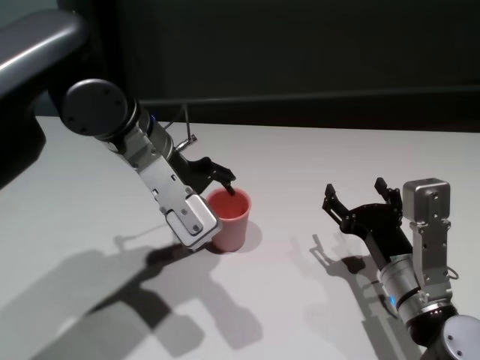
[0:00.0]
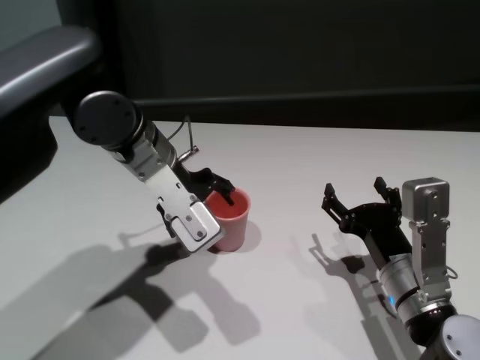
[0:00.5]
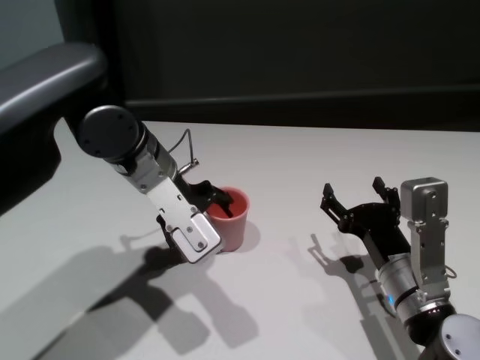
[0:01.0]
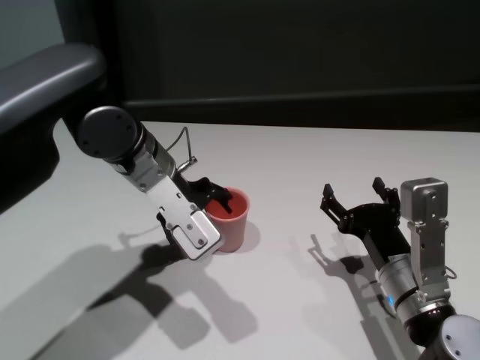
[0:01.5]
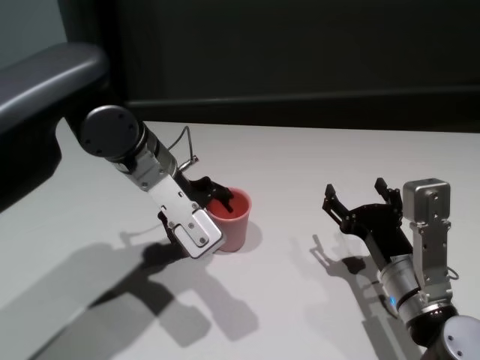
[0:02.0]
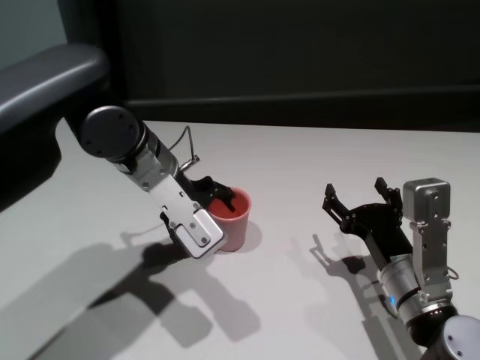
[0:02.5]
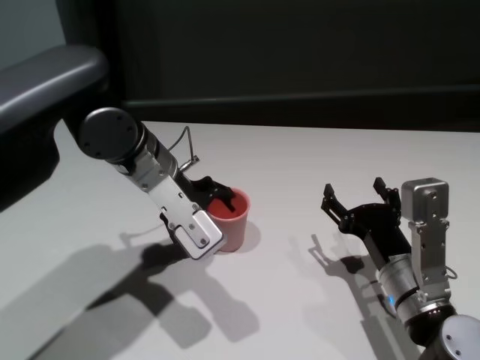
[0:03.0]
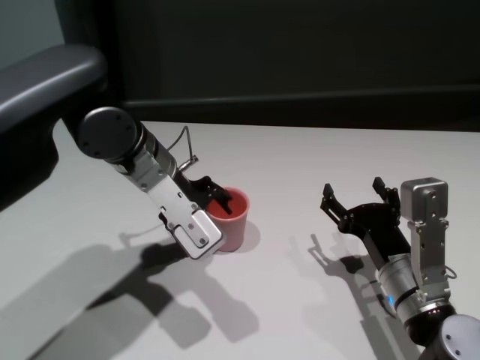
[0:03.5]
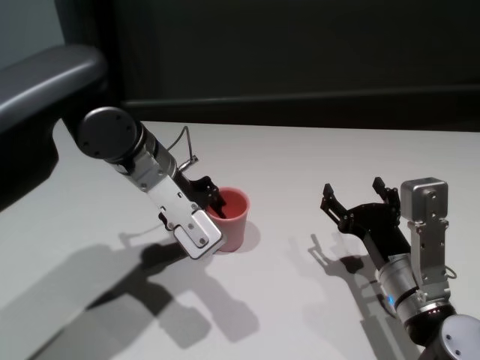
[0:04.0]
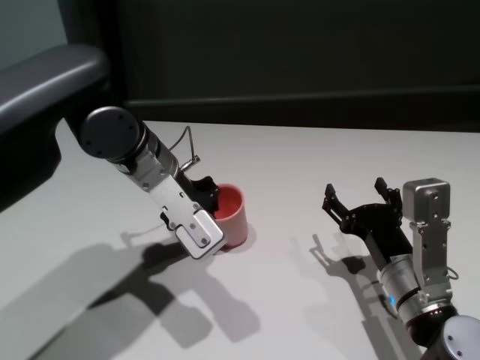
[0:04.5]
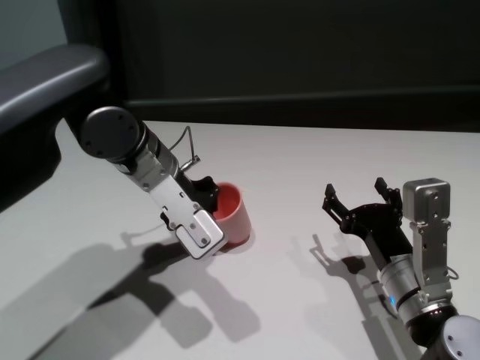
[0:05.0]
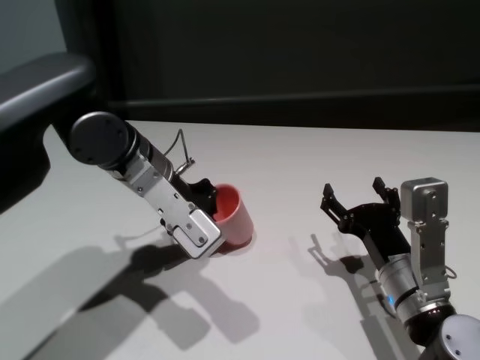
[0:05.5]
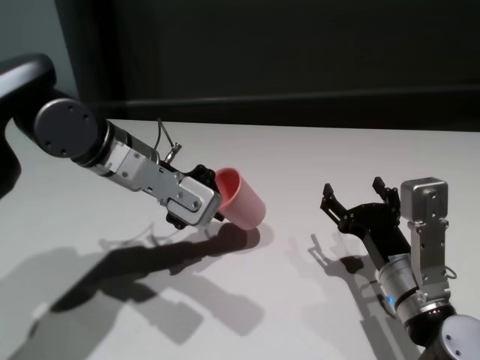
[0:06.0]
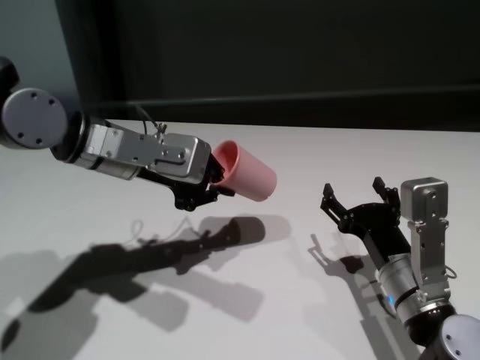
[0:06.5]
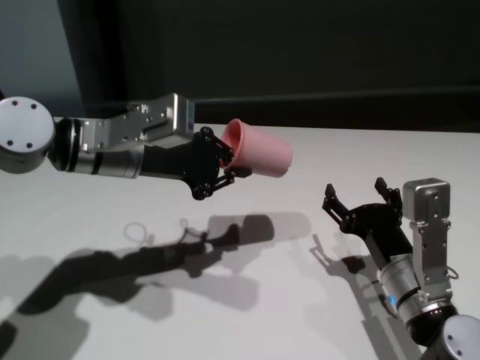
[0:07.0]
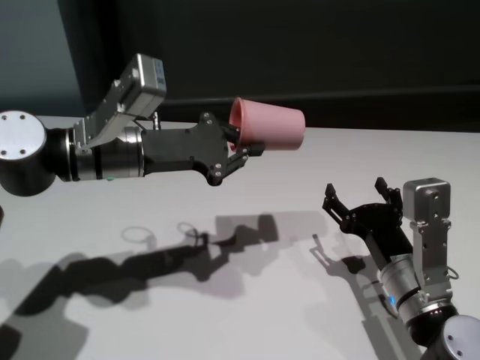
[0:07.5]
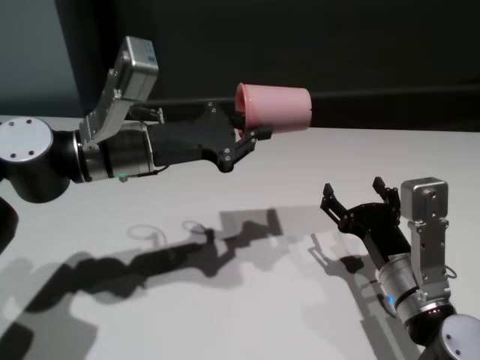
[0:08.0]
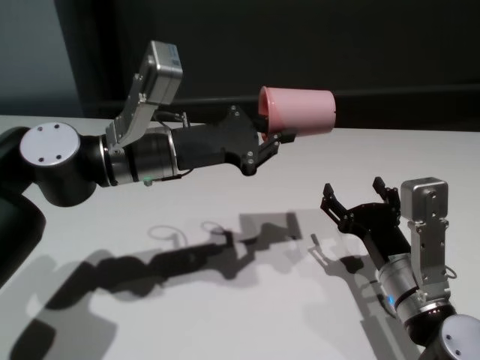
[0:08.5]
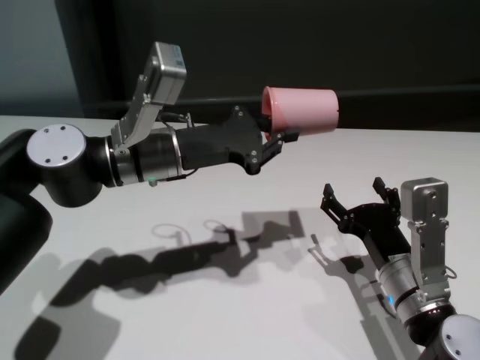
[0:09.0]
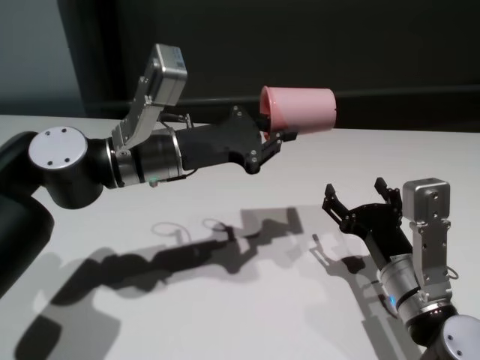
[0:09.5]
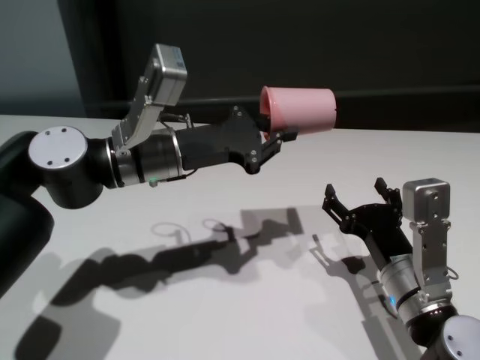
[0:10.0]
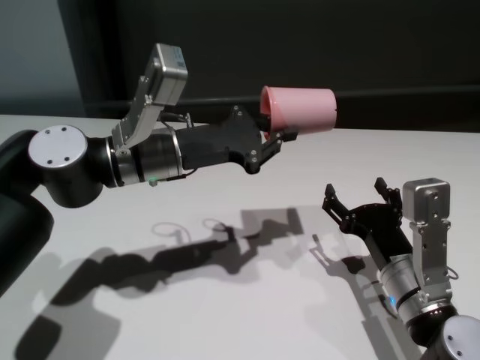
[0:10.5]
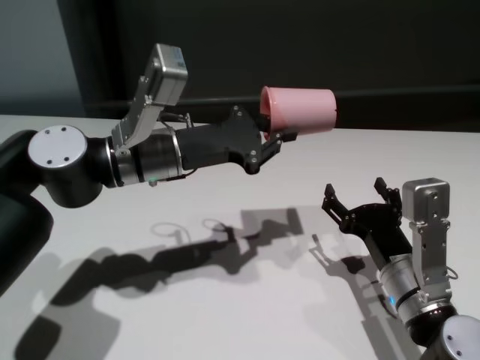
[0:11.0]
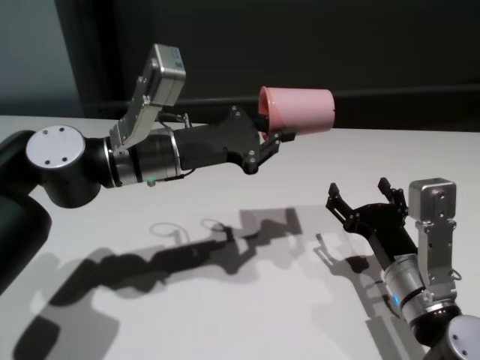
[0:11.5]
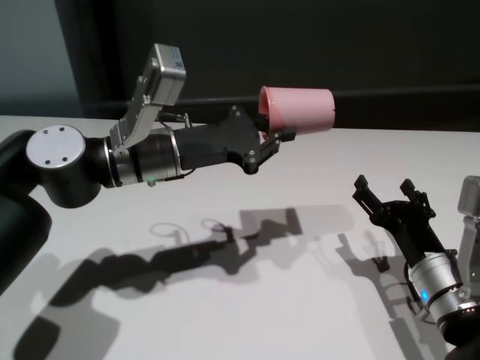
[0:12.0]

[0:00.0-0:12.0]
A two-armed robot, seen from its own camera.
Task of the whole recording: On the white table pick up the cup with one hand and transfer it to the other hand before turning it over.
Step, 0:00.0 to 0:04.5: Grasp the cup with left gripper.

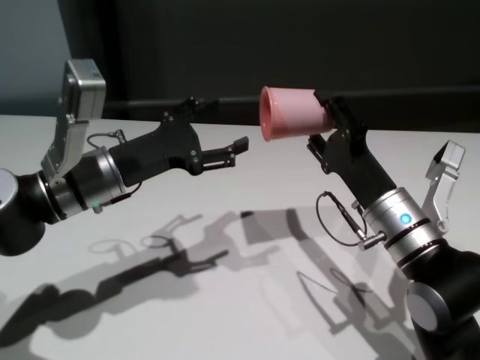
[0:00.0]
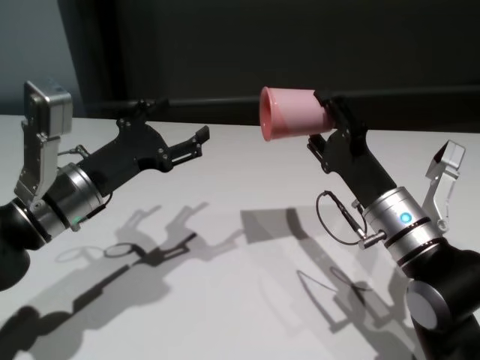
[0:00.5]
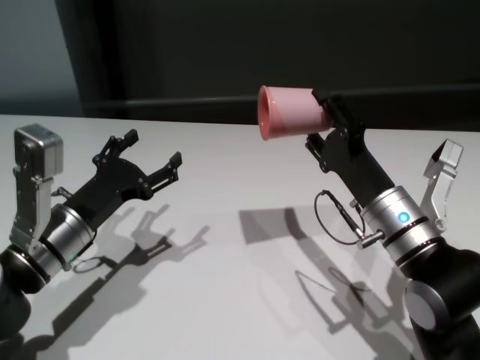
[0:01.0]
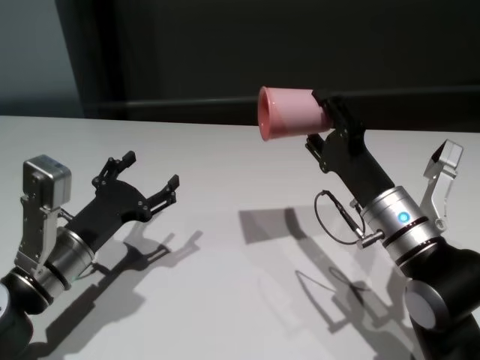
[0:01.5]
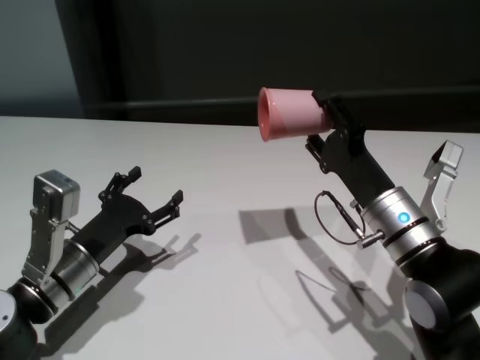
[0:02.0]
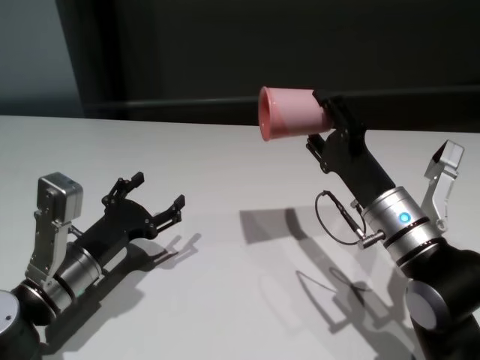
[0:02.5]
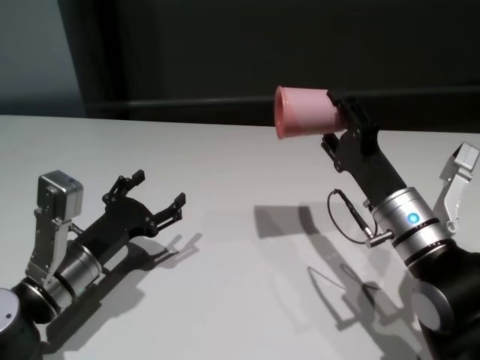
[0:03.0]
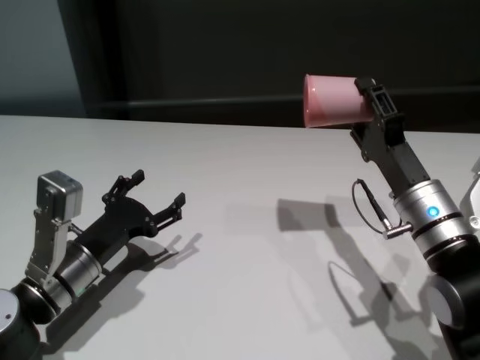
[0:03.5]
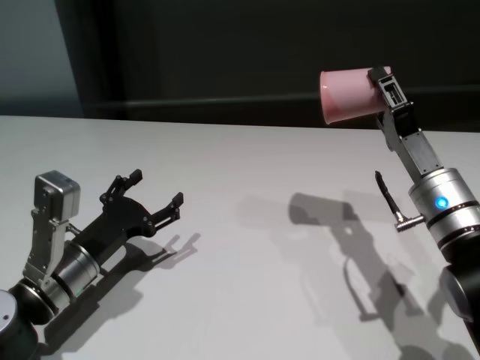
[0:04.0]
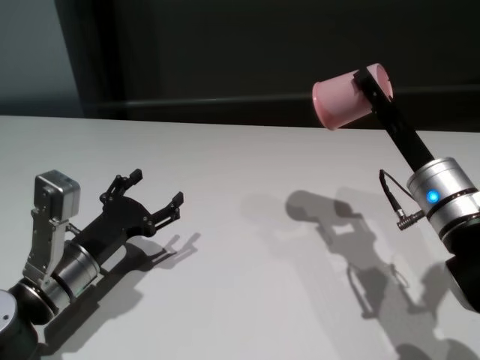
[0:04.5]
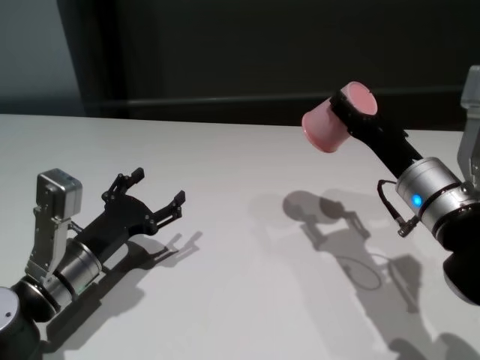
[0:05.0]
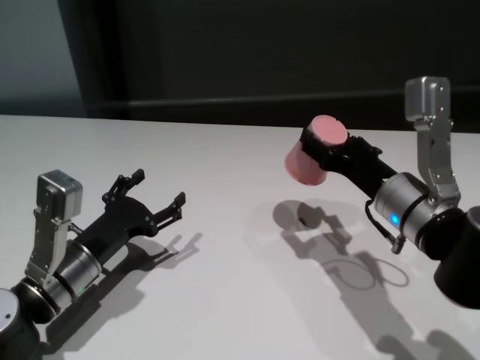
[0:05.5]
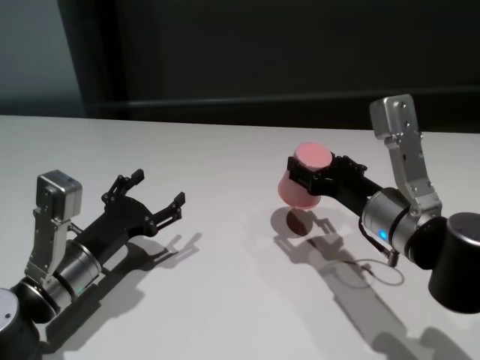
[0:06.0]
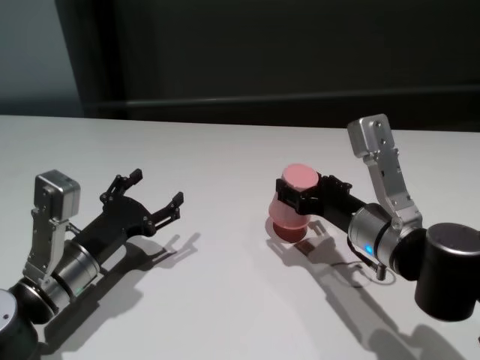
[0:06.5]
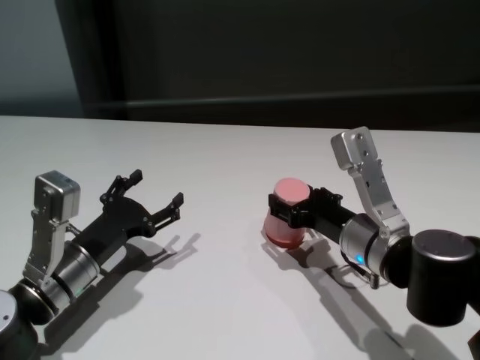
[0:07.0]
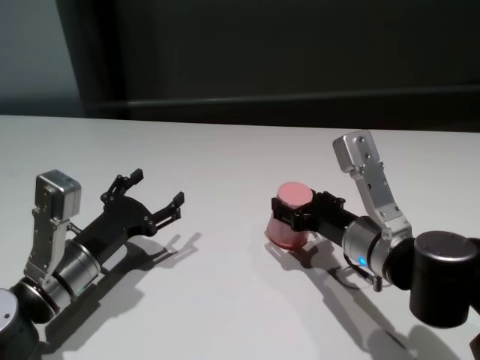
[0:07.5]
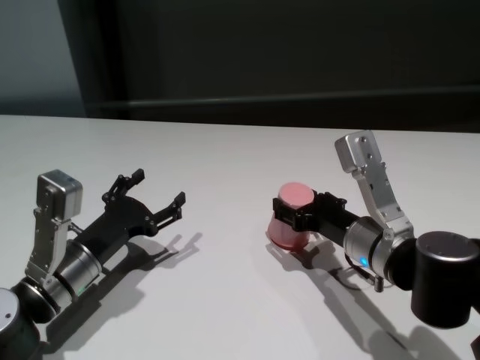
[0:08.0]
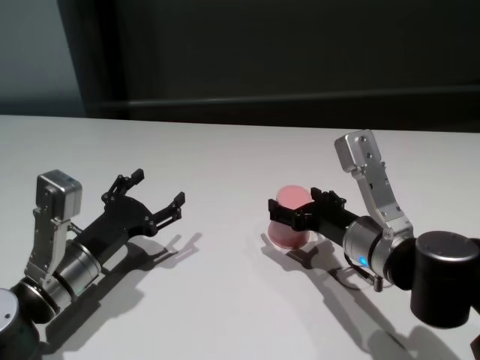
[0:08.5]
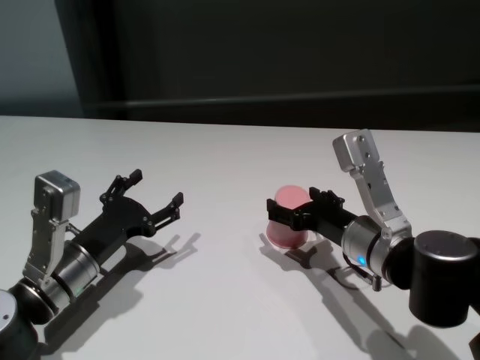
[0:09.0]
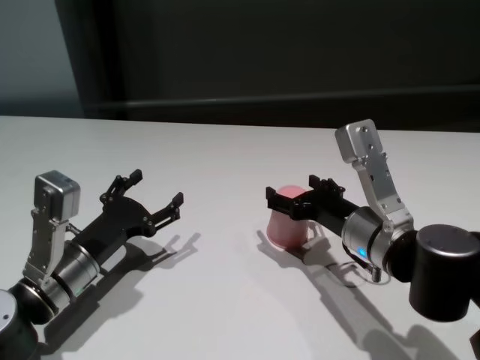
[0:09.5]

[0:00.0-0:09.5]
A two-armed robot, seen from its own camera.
Task of the whole recording: On the white table pick up the cup with one hand and transfer it to the other hand before turning it over.
Step, 0:00.0 to 0:08.5: Place the cup on the table with right gripper.

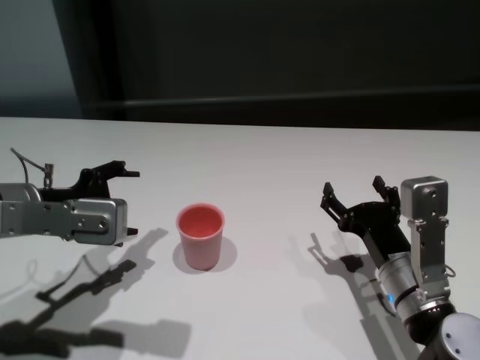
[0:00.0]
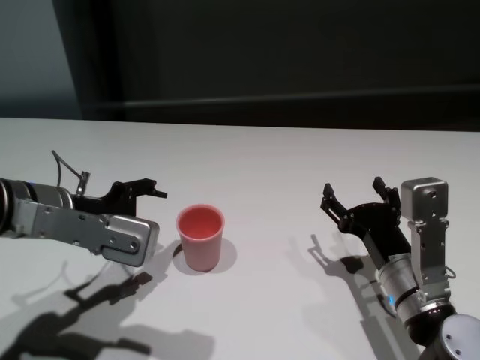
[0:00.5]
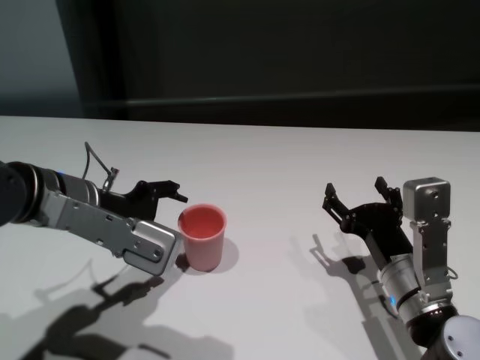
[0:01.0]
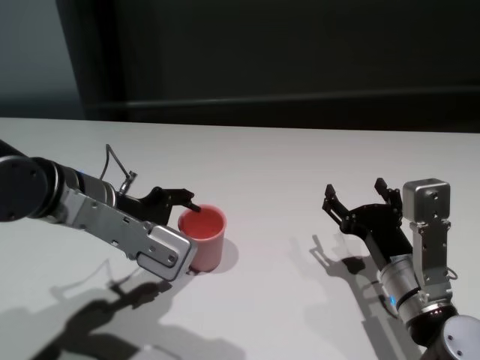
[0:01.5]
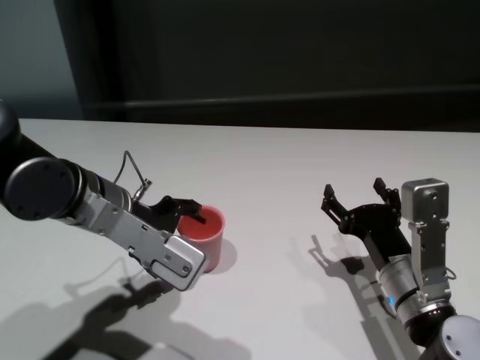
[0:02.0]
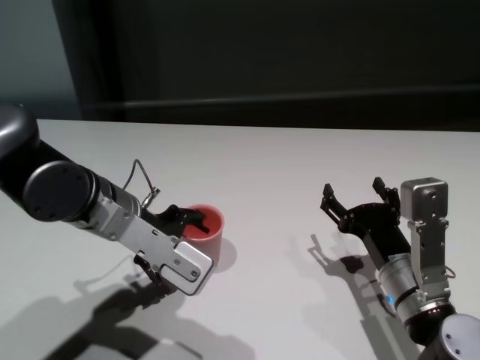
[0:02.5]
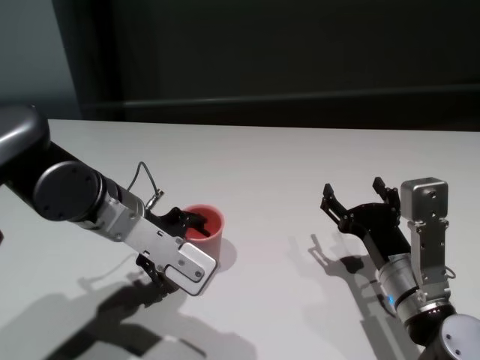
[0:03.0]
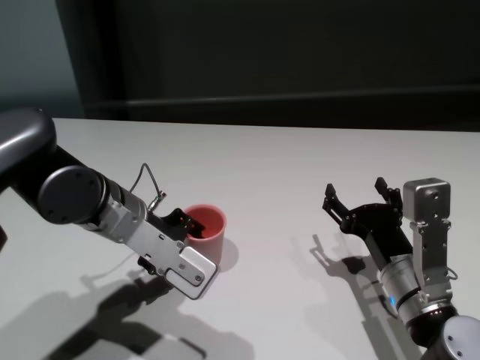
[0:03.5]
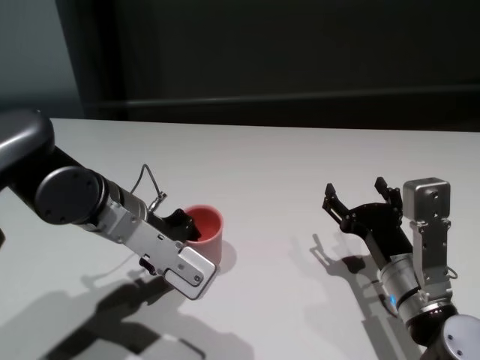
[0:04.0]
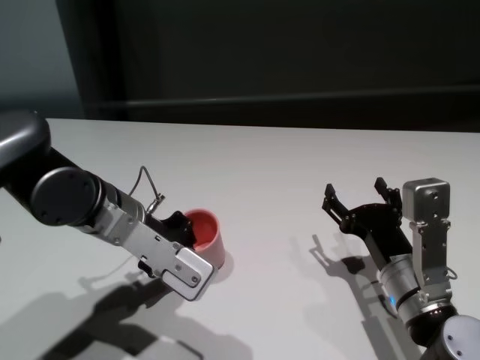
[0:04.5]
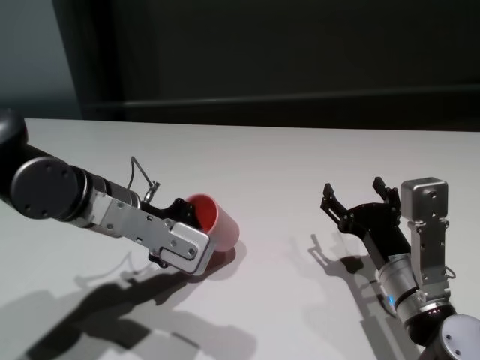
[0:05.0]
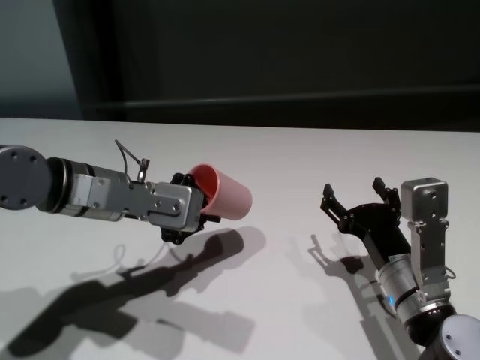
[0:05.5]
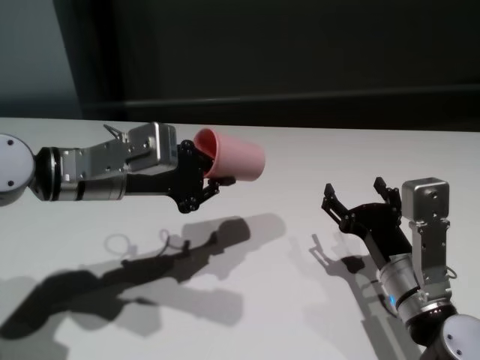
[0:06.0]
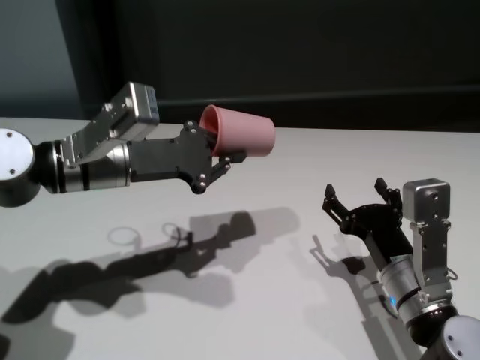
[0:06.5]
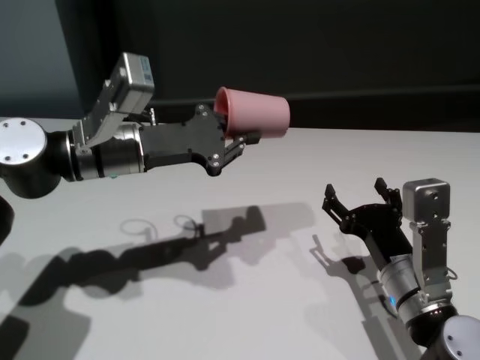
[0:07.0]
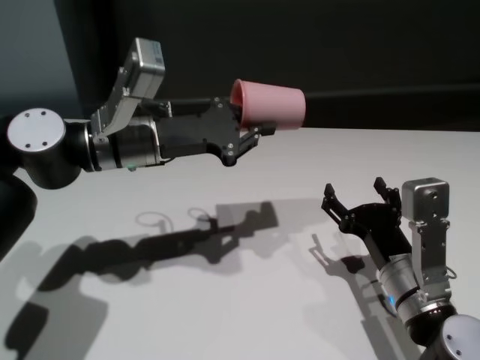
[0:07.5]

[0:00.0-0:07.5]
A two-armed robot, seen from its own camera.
Task of the whole recording: On the white table pick up the cup with one hand and transfer it to the other hand before turning it over.
Step, 0:00.0 to 0:04.5: Grasp the cup with left gripper.
